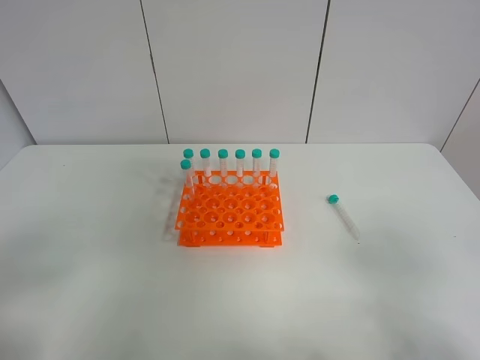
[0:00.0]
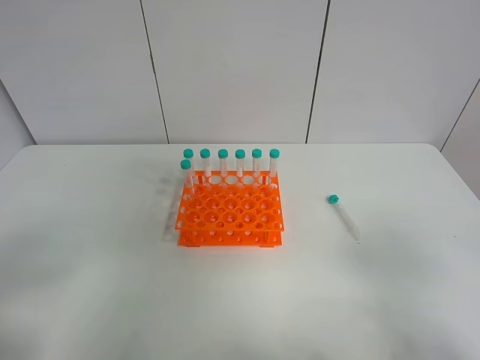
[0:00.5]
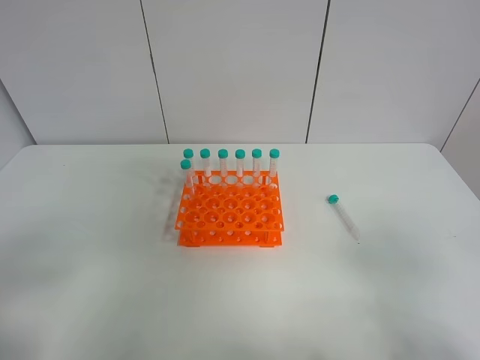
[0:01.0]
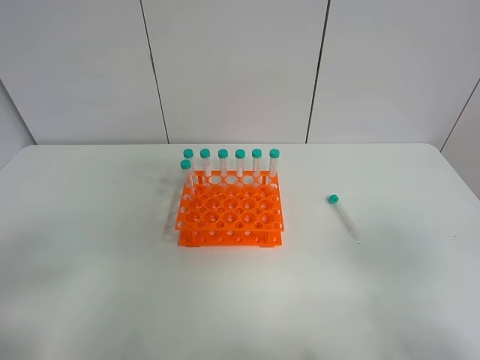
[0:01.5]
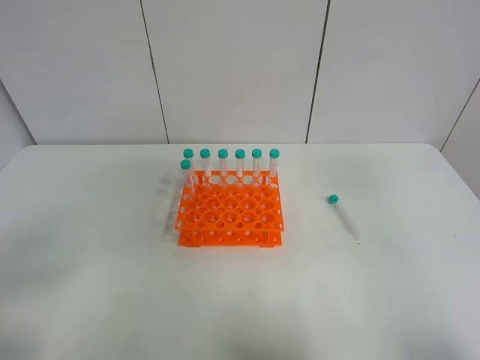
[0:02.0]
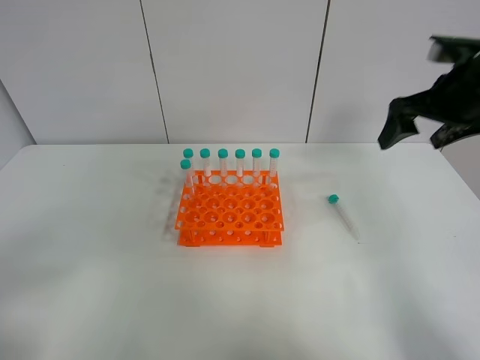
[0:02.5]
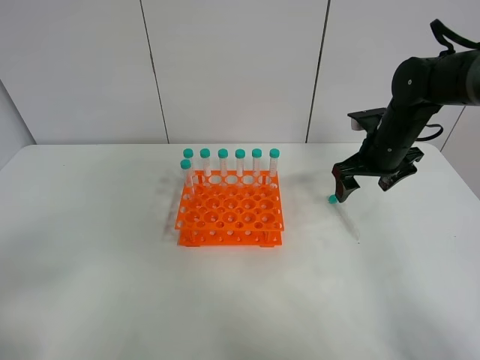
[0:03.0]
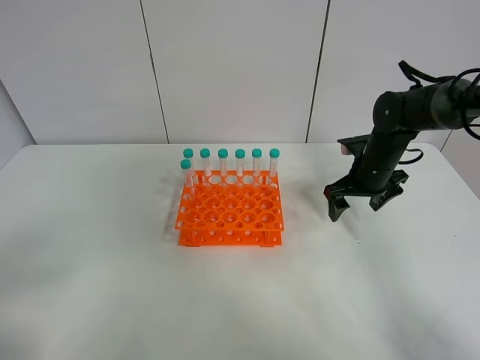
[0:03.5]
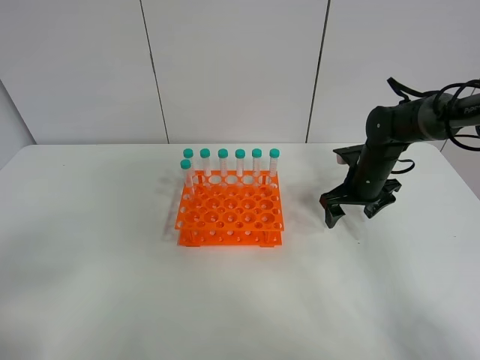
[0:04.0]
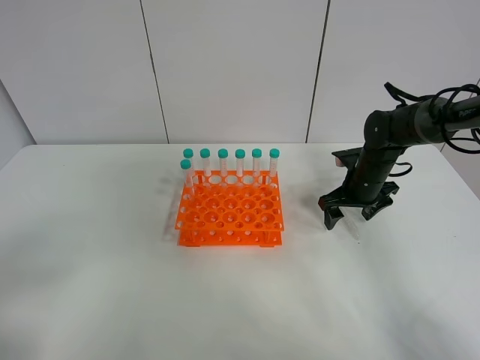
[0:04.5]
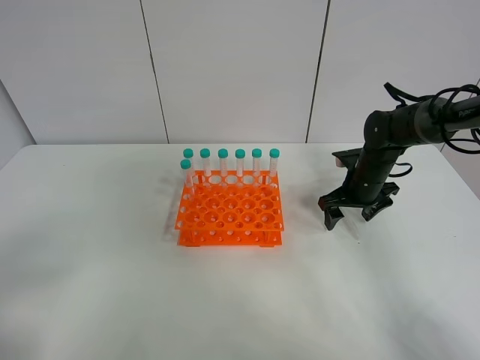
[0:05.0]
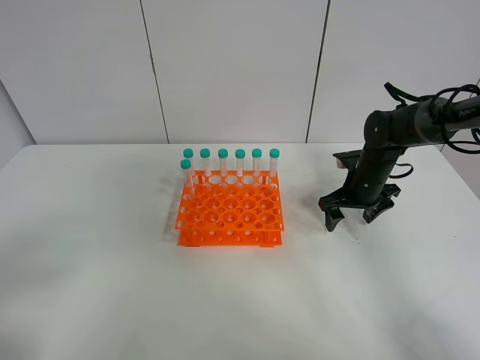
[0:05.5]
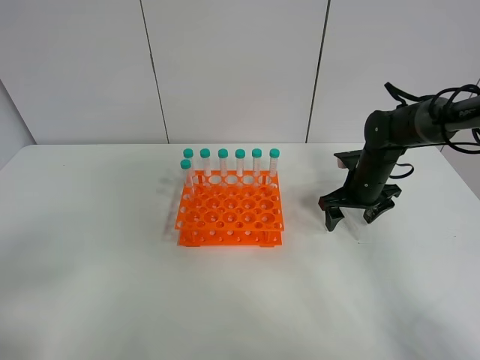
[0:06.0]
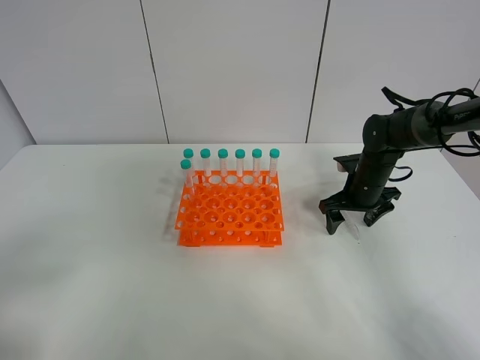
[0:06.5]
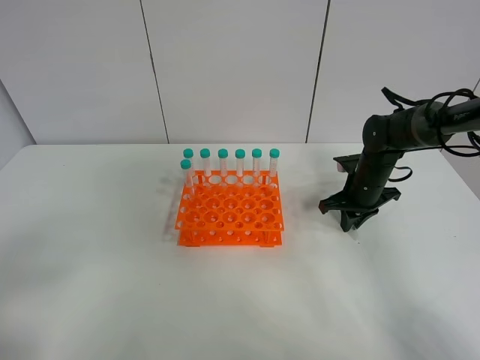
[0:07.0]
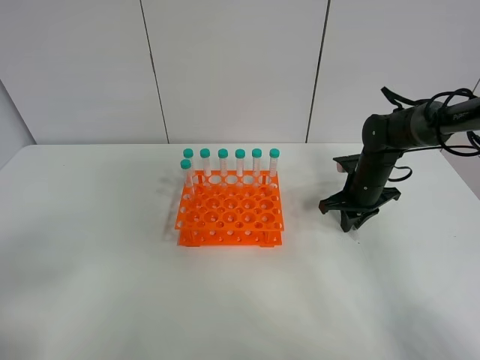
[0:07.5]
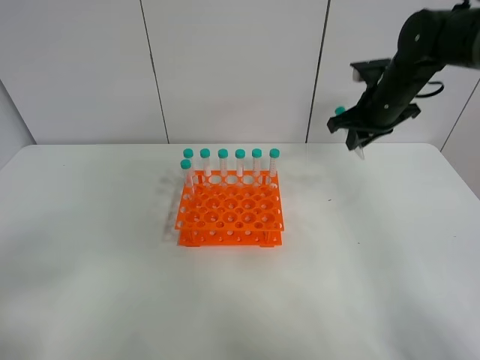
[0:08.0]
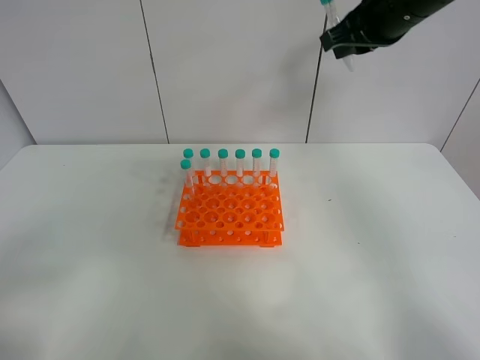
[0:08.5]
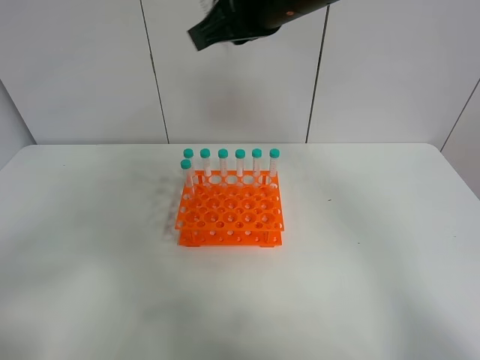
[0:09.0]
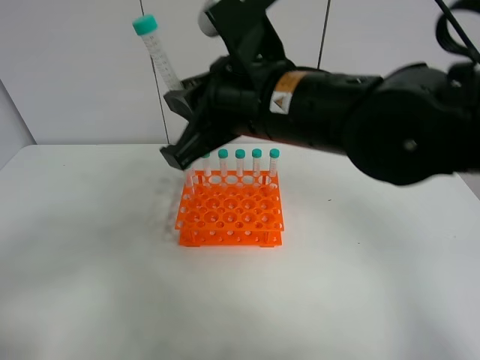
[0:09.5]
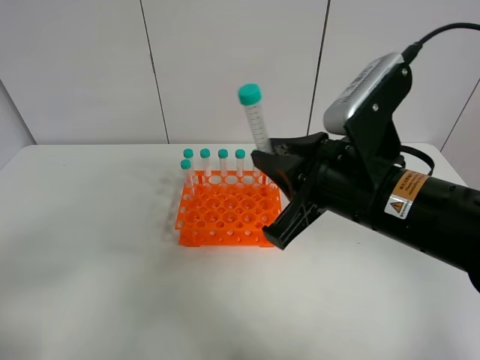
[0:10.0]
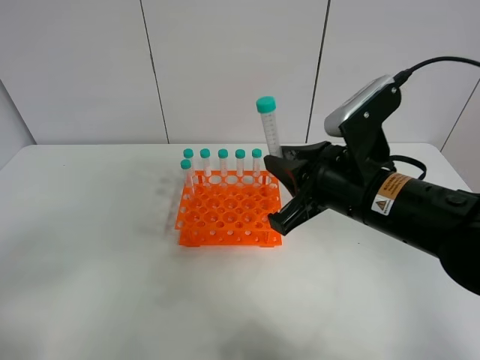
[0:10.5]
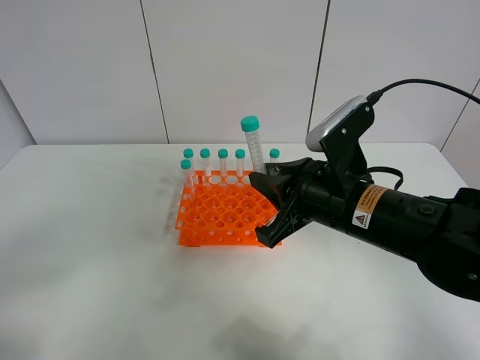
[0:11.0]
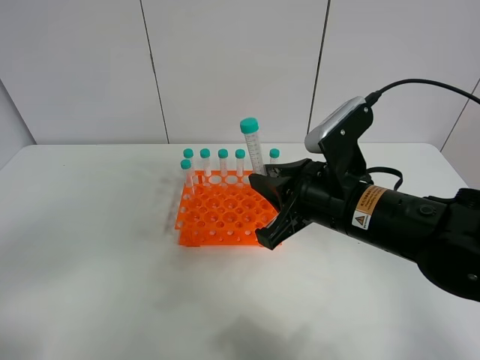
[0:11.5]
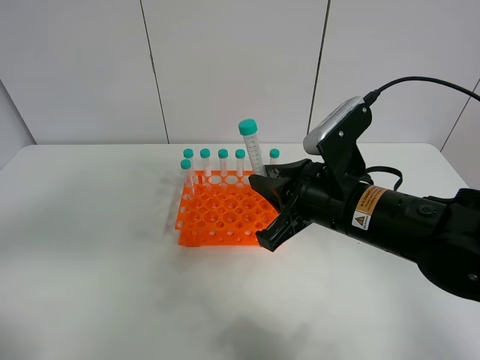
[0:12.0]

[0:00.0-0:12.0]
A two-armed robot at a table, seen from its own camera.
Task of the whole recording: Put the test tube on the table back onto the test tube rack.
Step, 0:00.0 to 0:07.0: Pick up the test tube with the right gripper.
0:00.0 to 0:02.0: The right gripper is displaced upward and forward by roughly 15 cm.
0:02.0 to 0:04.0: The right gripper is displaced forward and downward by approximately 40 cm.
0:04.0 to 0:06.0: Both grippers stay about where they are.
0:06.0 to 0:08.0: The right gripper moves upward, some 15 cm, and closes up.
0:08.0 to 0:10.0: The right gripper is displaced backward and to the left by roughly 25 cm.
0:10.0 to 0:12.0: The right gripper shifts by approximately 5 cm; the left gripper travels upward by about 5 cm.

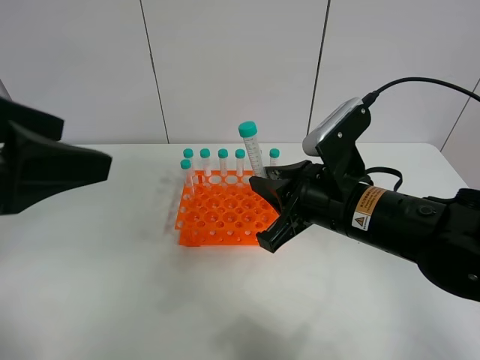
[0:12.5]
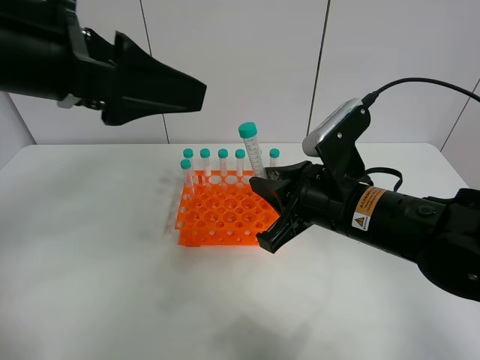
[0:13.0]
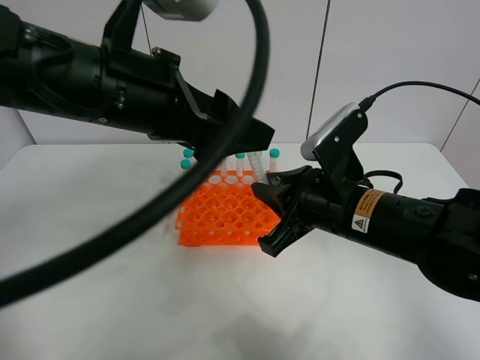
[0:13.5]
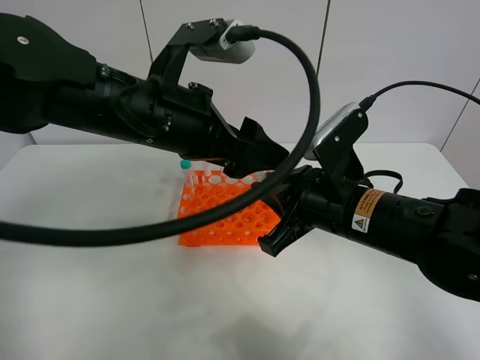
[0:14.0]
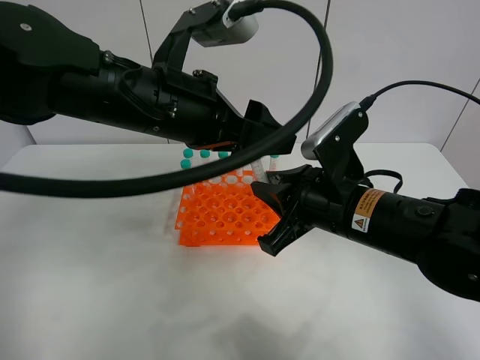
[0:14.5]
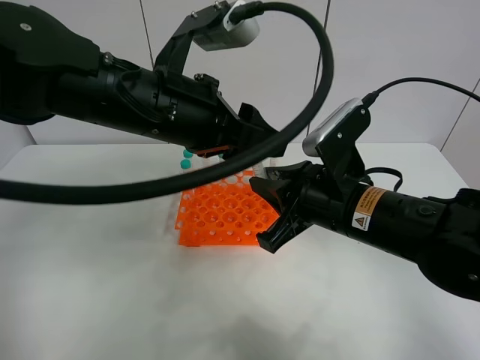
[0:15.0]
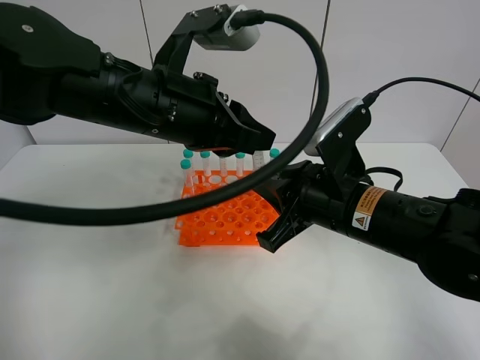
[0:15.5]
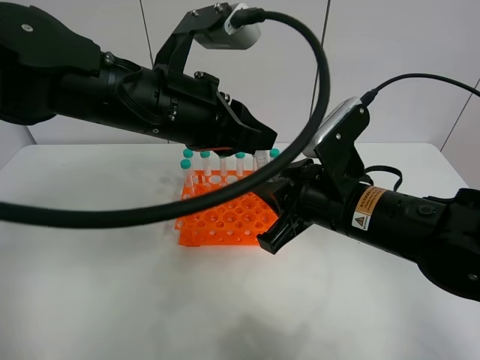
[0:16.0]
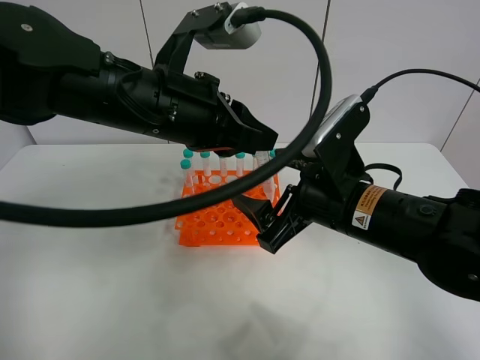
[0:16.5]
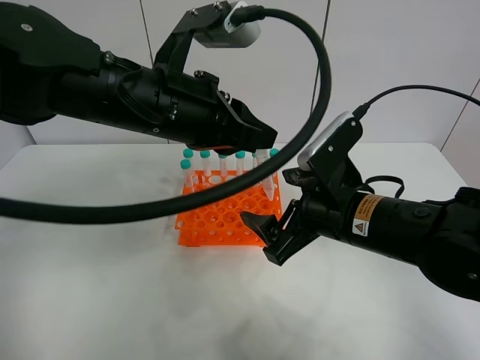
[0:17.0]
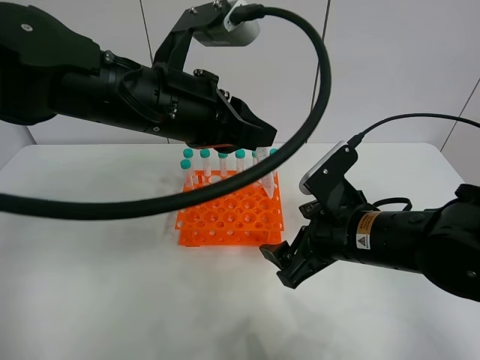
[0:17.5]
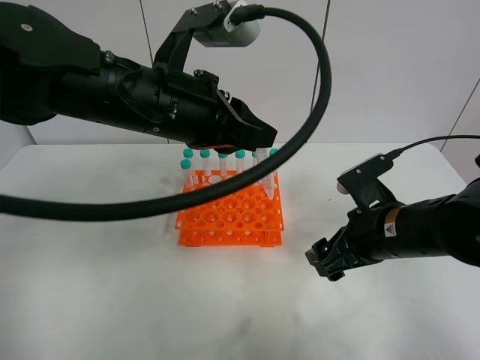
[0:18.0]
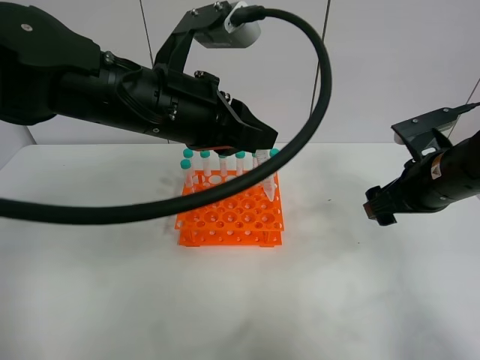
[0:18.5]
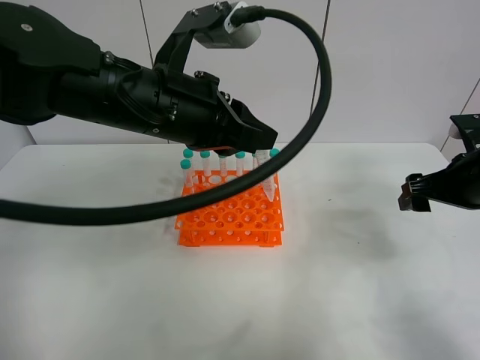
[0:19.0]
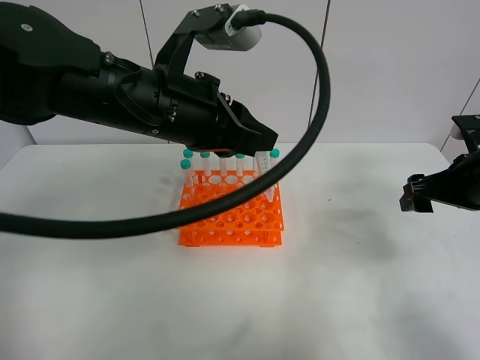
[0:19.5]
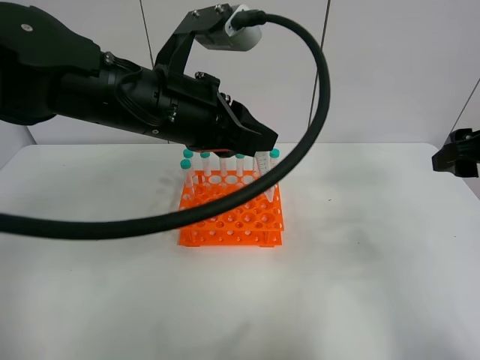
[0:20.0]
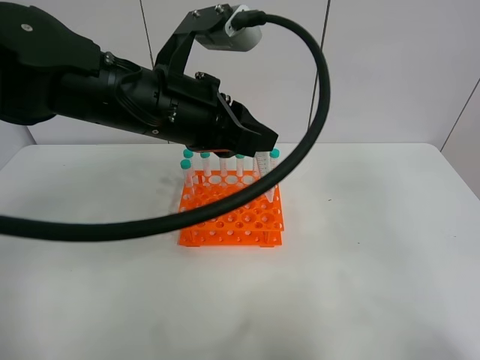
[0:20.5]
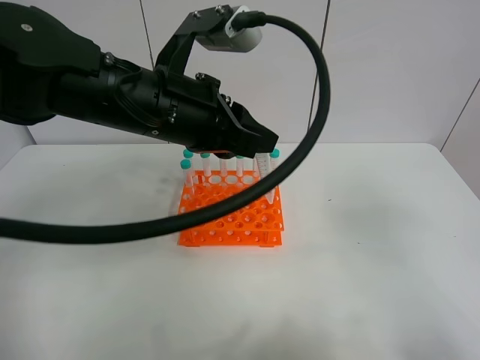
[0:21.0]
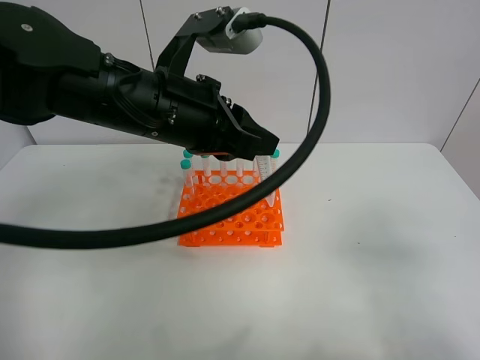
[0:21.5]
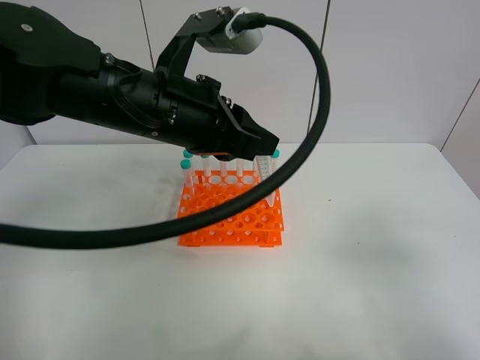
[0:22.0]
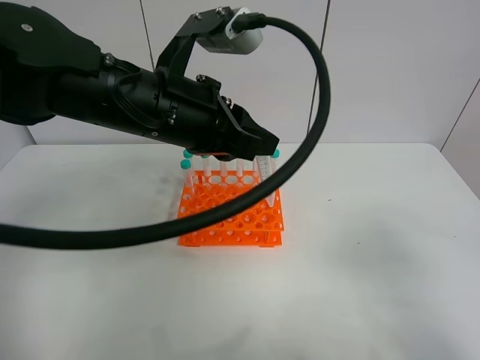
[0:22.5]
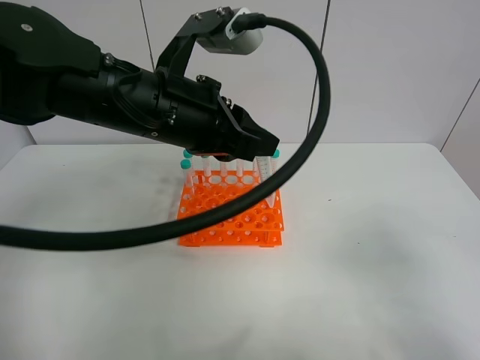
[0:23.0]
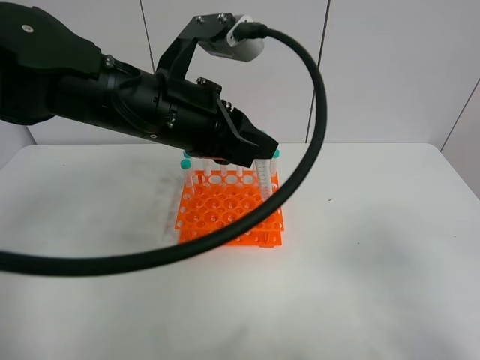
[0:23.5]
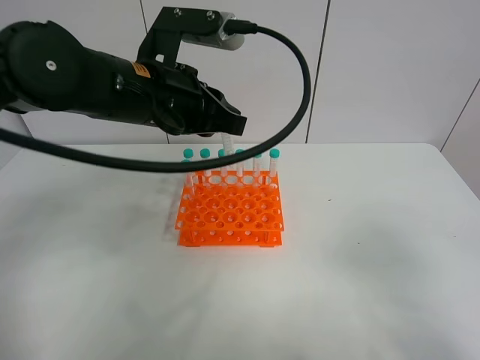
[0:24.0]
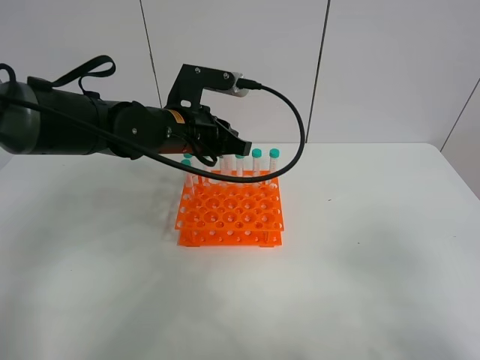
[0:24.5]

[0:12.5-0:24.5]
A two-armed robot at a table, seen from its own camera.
Task of the whole recording: Put the test tube on the table back onto the test tube rack.
Step, 0:12.5 to 0:16.0: Move the test tube from the right gripper to the left gripper.
0:12.5 to 0:14.5: The left gripper heads to the right, forward and downward, covering approximately 20 cm.
0:14.5 to 0:16.5: The left gripper closes. The right gripper opens up.
0:16.5 to 0:18.5: The right gripper shifts roughly 15 cm to the right.
0:18.5 to 0:20.5: The right gripper is displaced backward and upward by roughly 20 cm.
0:20.5 to 0:22.5: The right gripper is displaced backward and downward by some 15 cm.
0:22.5 to 0:24.5: The left gripper moves forward and downward, approximately 15 cm.

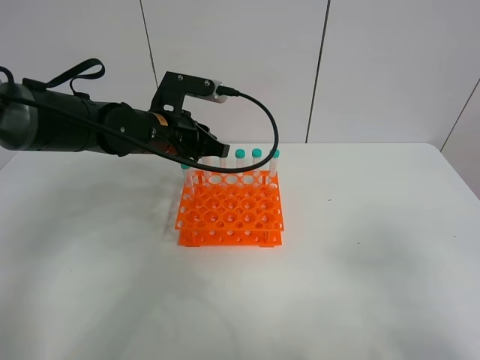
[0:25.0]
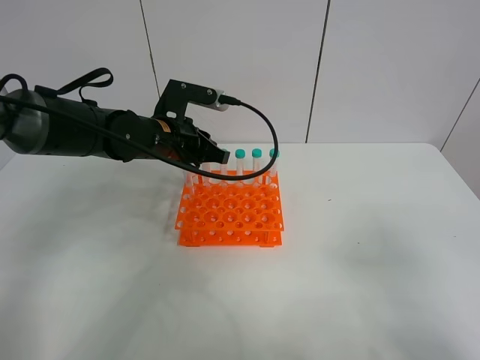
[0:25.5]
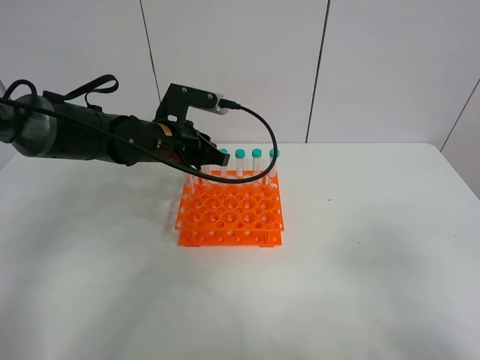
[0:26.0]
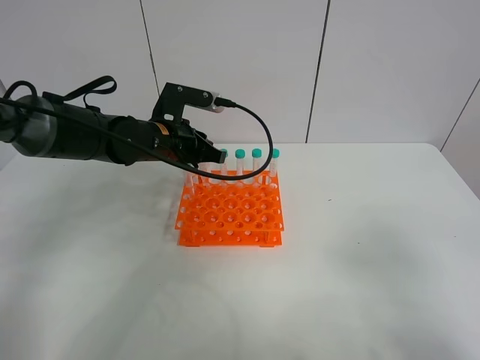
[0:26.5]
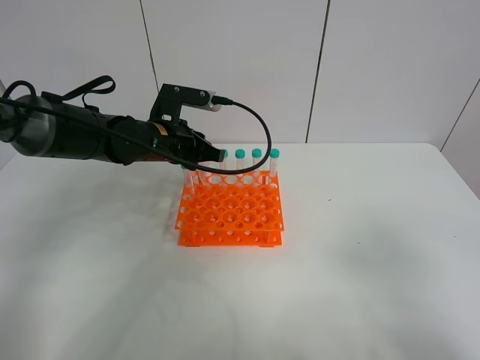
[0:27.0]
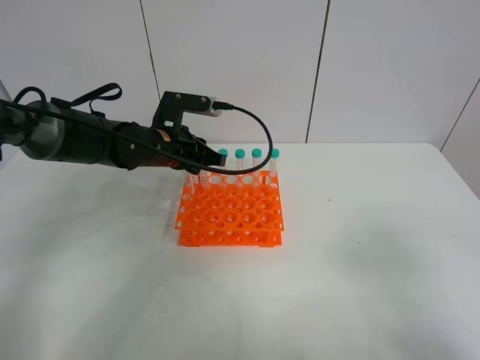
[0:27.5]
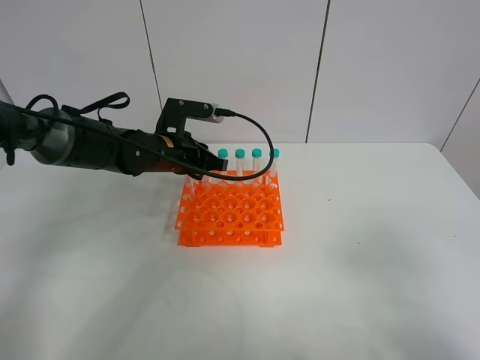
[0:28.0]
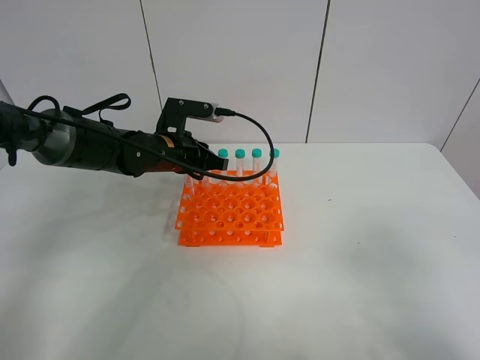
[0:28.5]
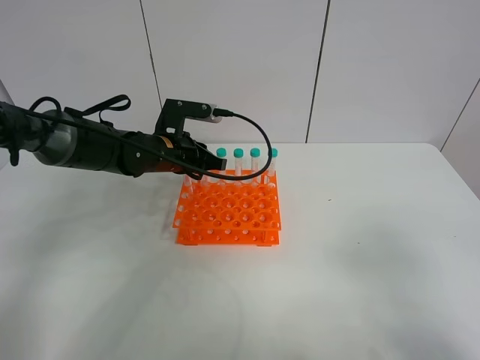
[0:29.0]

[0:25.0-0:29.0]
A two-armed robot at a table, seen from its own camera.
Task of the whole recording: Put the test tube on the table back onto the test tube rack.
0:25.0 to 0:29.0: The grippers move only a little.
